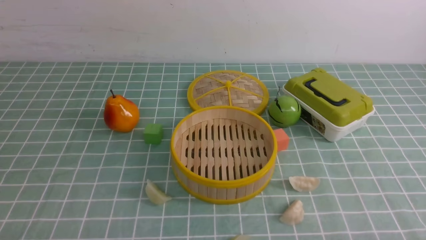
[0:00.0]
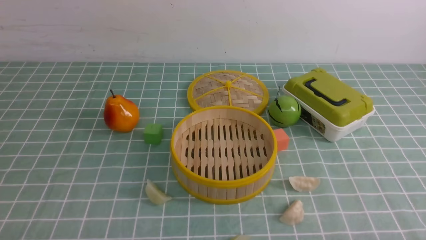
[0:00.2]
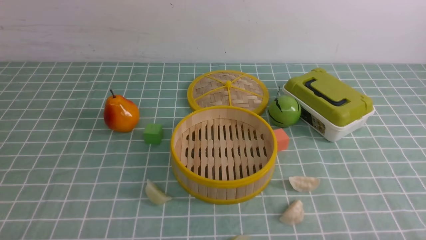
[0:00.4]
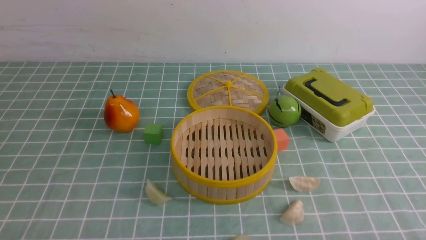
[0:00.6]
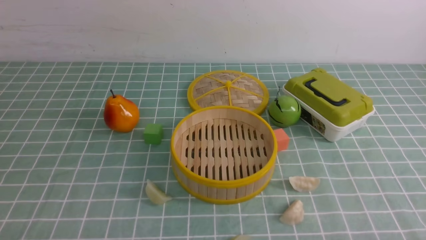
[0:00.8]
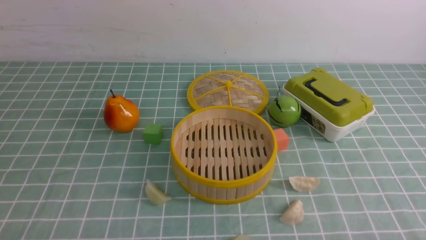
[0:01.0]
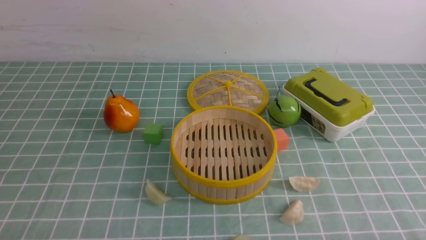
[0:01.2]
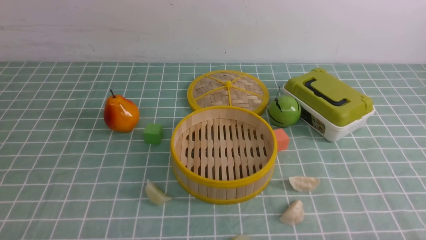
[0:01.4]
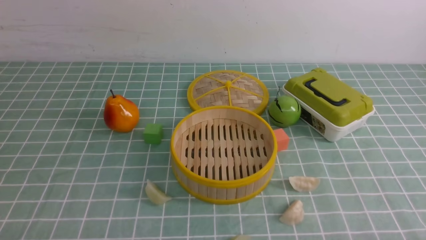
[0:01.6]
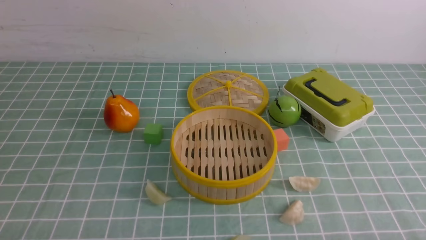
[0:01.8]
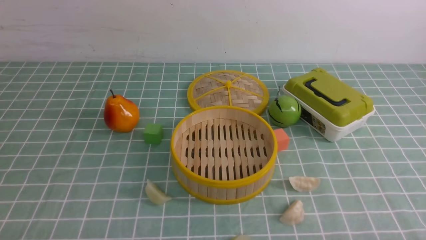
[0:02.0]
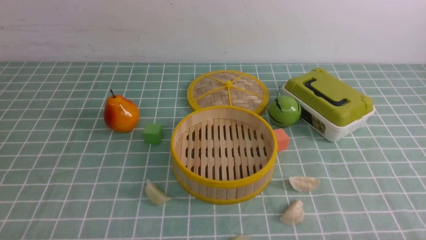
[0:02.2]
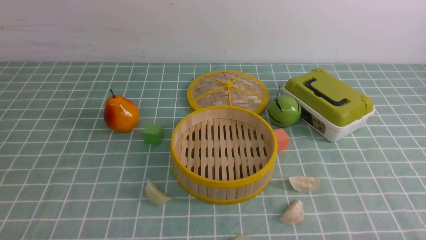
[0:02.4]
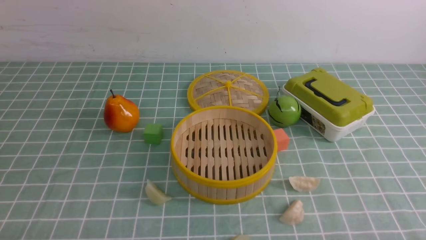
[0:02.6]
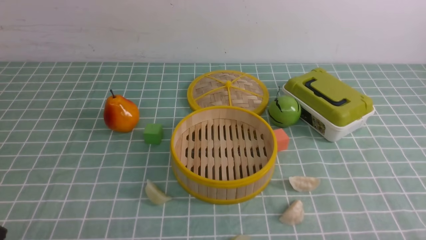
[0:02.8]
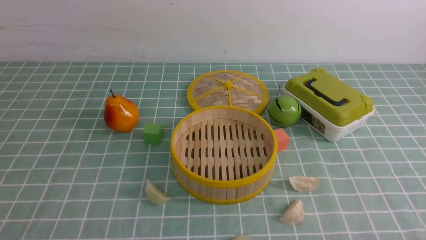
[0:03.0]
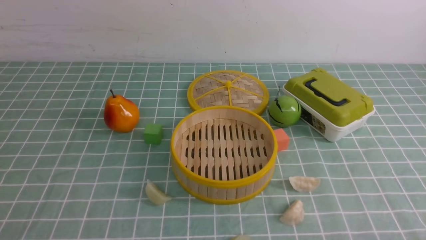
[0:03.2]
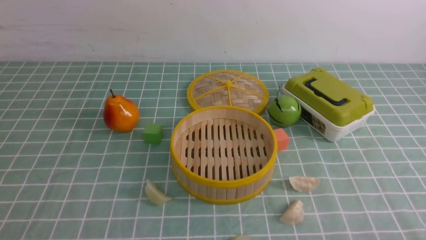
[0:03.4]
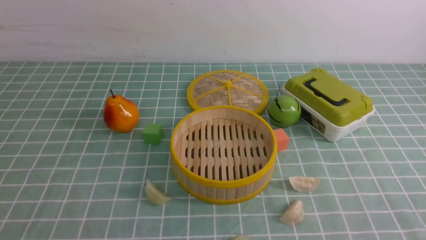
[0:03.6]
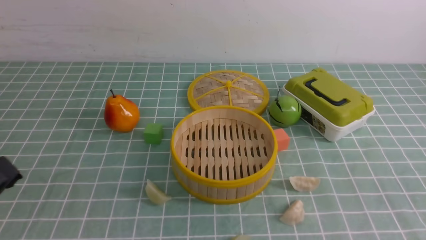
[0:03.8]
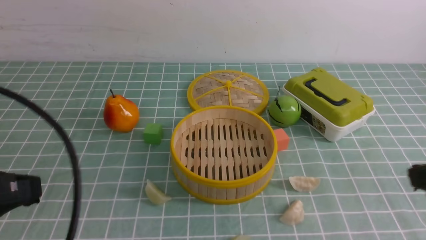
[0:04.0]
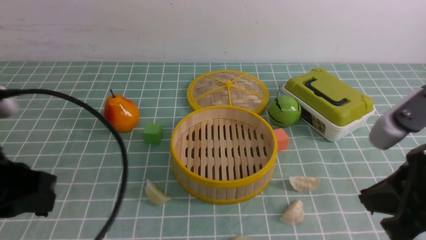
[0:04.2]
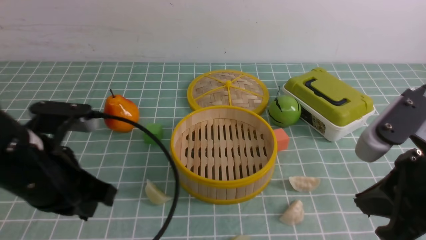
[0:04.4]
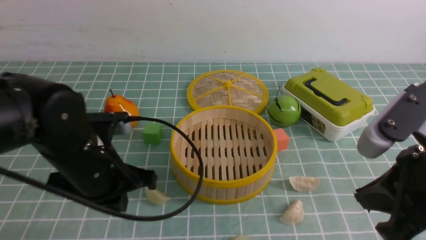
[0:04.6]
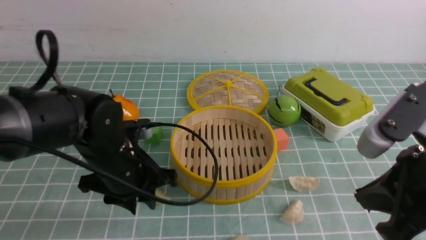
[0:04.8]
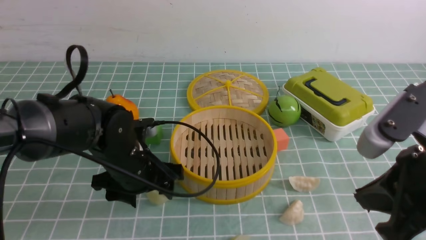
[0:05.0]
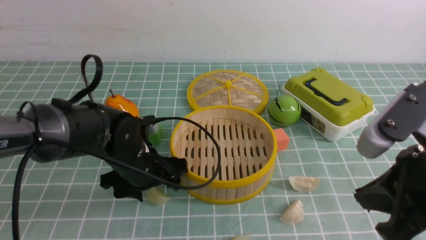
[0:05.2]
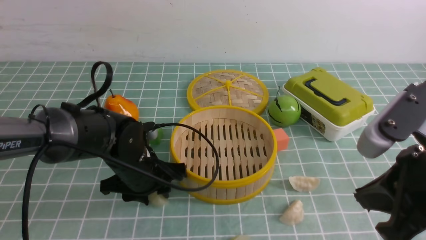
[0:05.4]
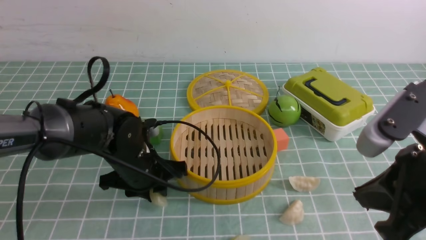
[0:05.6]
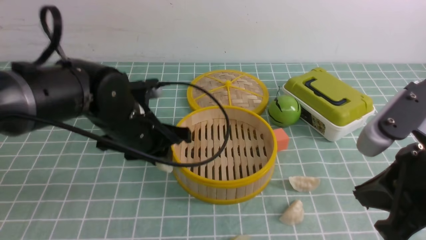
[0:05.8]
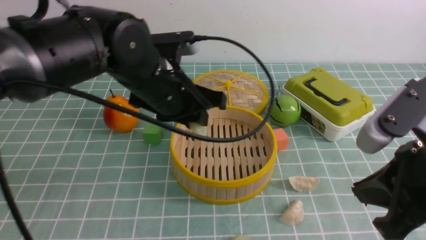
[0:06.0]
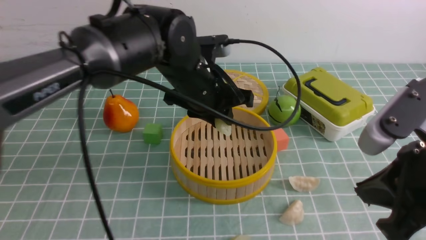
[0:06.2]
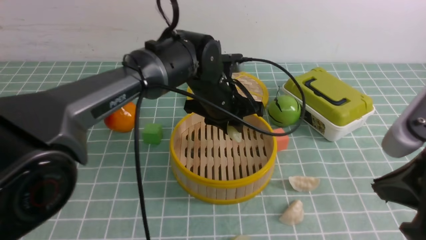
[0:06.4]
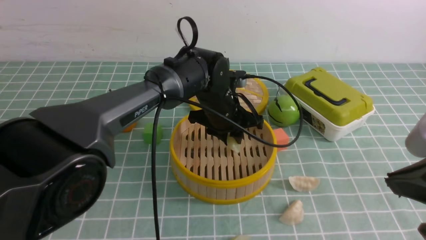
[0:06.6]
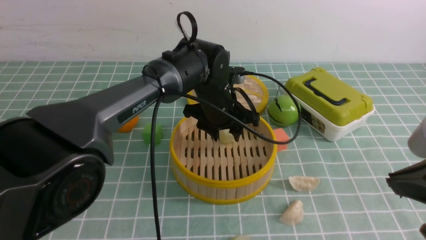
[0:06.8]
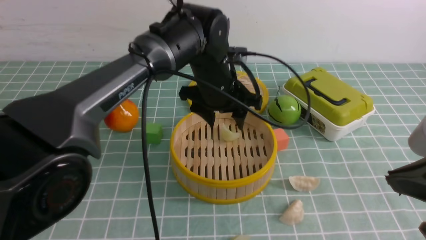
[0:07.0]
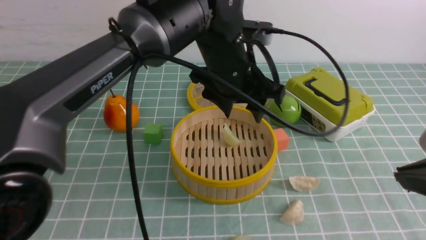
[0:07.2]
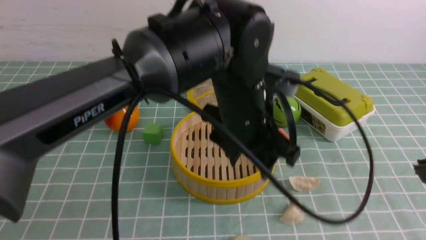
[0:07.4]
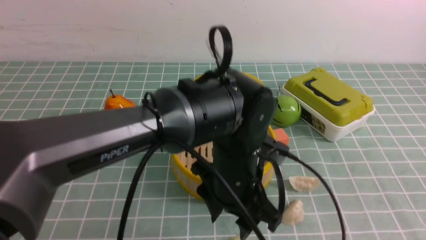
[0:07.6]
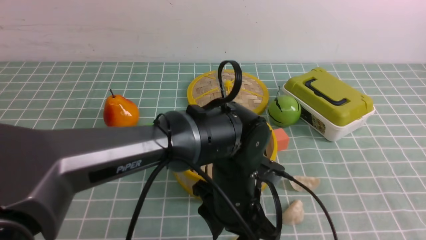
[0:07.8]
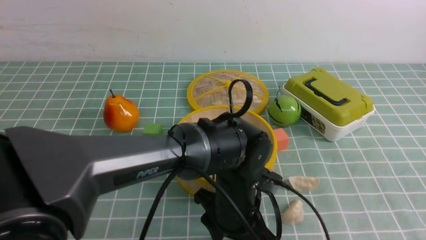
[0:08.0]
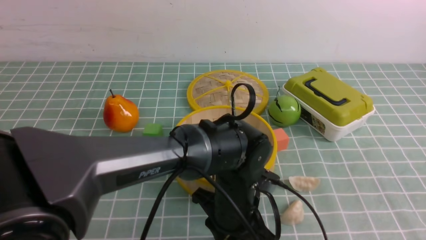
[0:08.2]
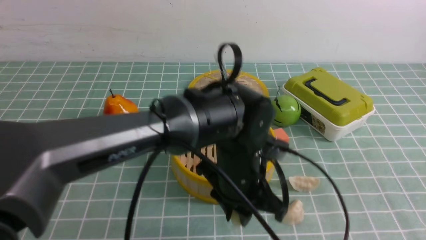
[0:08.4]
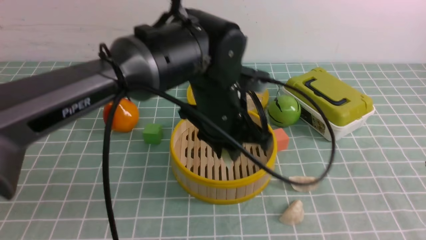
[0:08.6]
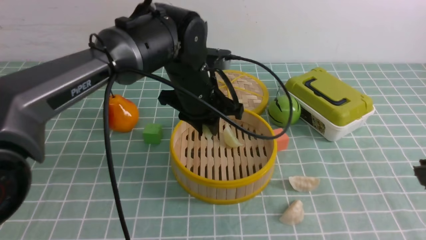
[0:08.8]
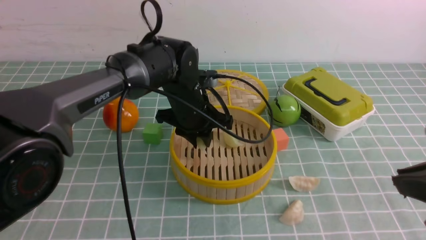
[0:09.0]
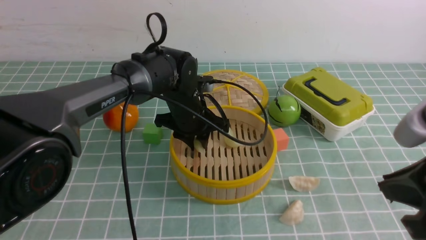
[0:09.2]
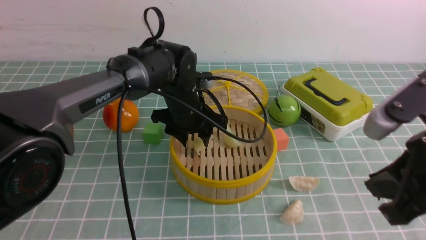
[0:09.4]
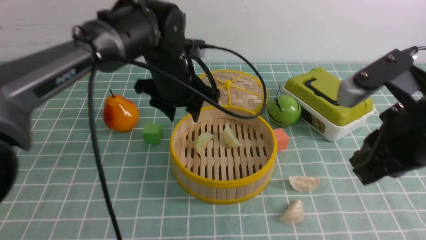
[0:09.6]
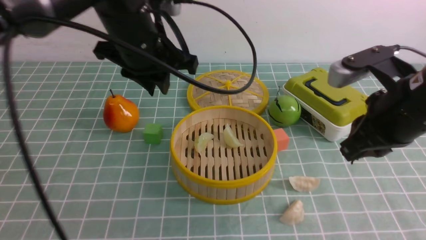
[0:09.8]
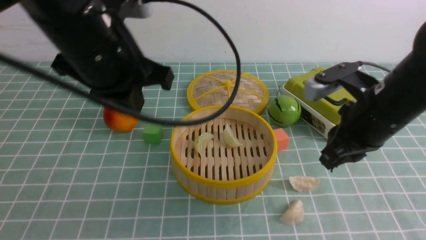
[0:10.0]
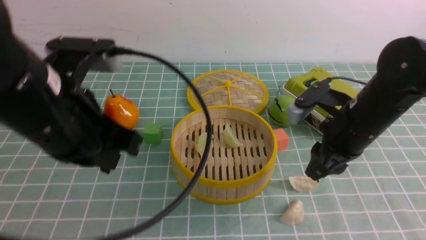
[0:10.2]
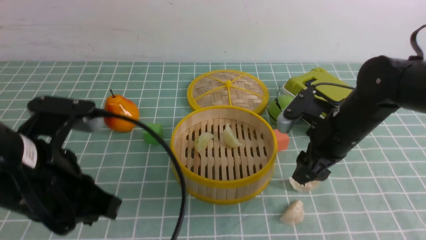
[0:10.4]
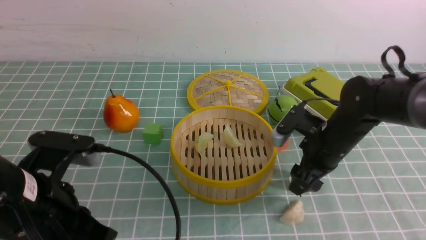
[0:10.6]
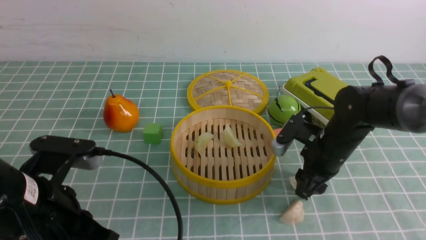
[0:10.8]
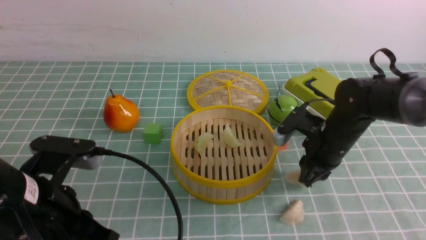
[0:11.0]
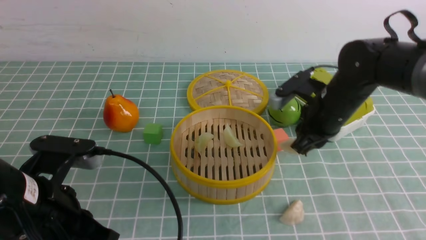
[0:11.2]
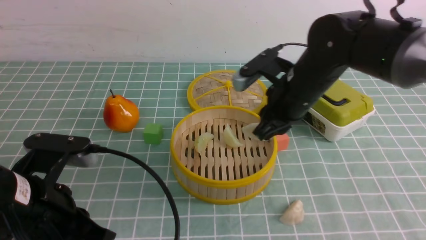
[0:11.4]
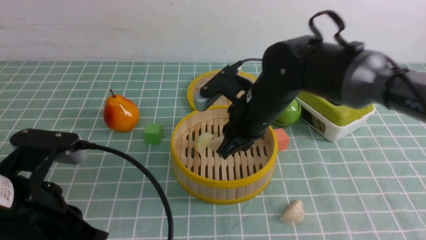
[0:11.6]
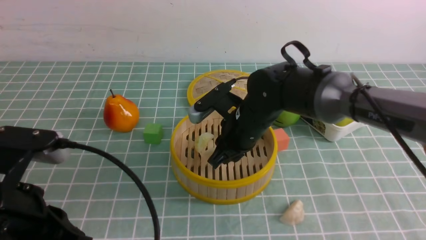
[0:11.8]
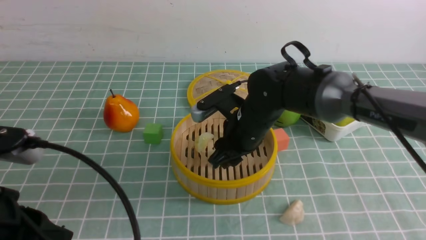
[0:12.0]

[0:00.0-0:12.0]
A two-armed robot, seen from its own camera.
Task of the whole recording: put the dumplings into the steamer on the table with the blue tablecloth.
Step, 0:00.0 to 0:05.4: use the left arm to grab a dumpling.
Step, 0:05.6 to 0:07.0: use the left arm to put the dumpling into the steamer.
Step, 0:07.2 to 0:08.0: use the left arm to grab a dumpling.
Step, 0:08.2 to 0:09.4: use the left arm to put the dumpling into the steamer.
Step, 0:09.6 to 0:10.8: use the right arm to grab a dumpling.
0:03.0 to 0:04.4: The right gripper shifts roughly 20 cm upward, forward and to the left, and closes; the left gripper moves forward, upward and to the right, approximately 20 cm.
0:04.4 to 0:06.0: The left gripper goes roughly 20 cm to the right and forward, and opens.
0:06.0 to 0:07.6: The left gripper heads to the right, backward and downward, covering about 15 cm, and opens up, while the right gripper travels backward by some 5 cm.
0:07.6 to 0:09.0: The left gripper shifts roughly 15 cm forward and to the left, and closes.
0:09.0 to 0:10.4: The left gripper heads backward and to the left, covering some 25 cm, and closes its fingers. Meanwhile the right gripper moves forward and downward, some 25 cm, and opens up.
0:10.4 to 0:12.0: The right gripper shifts roughly 15 cm to the left, and closes, then opens again. Meanwhile the left gripper heads backward, covering about 5 cm.

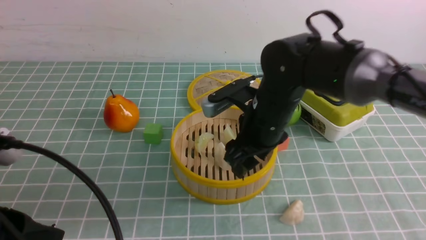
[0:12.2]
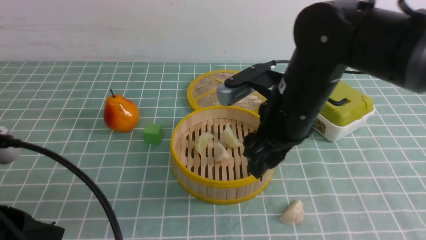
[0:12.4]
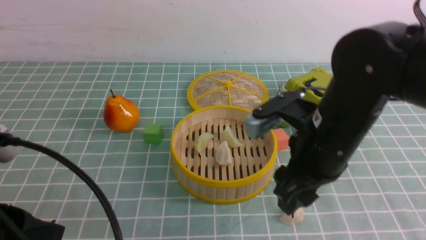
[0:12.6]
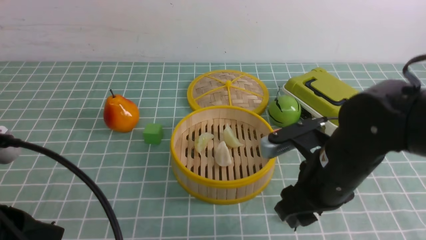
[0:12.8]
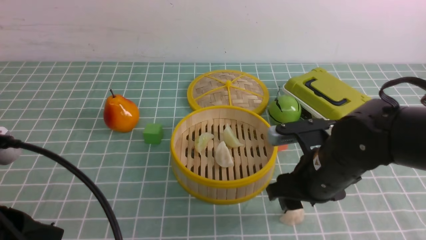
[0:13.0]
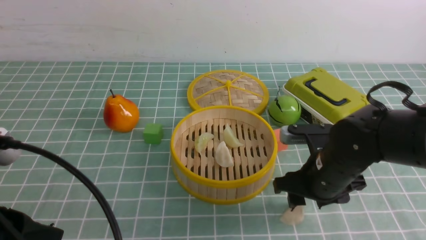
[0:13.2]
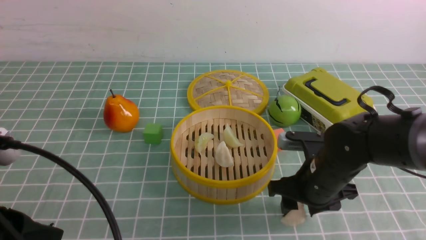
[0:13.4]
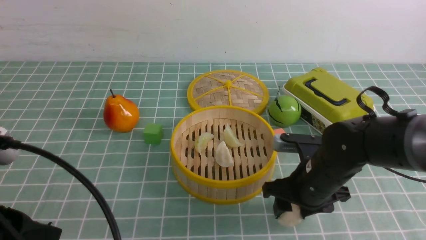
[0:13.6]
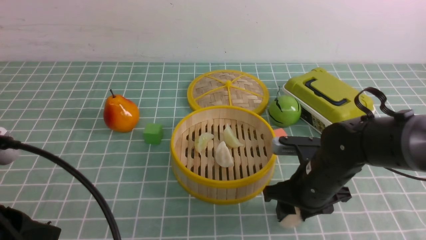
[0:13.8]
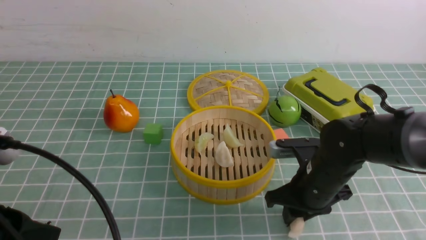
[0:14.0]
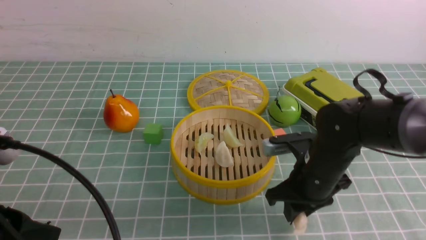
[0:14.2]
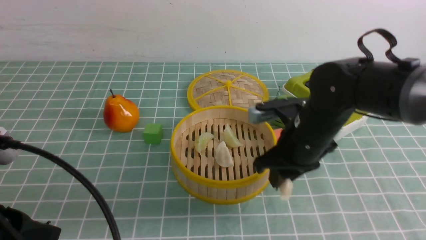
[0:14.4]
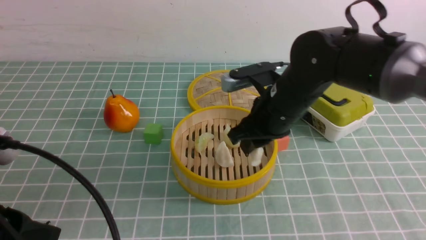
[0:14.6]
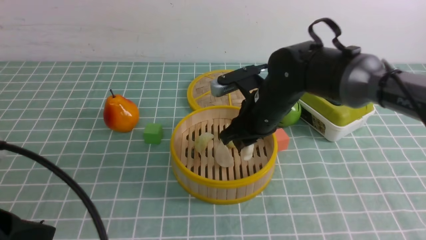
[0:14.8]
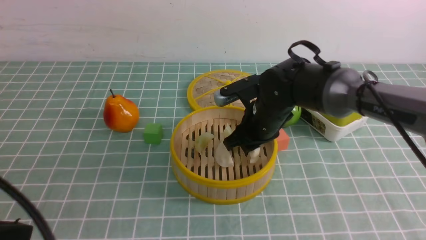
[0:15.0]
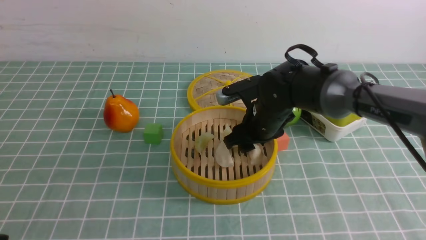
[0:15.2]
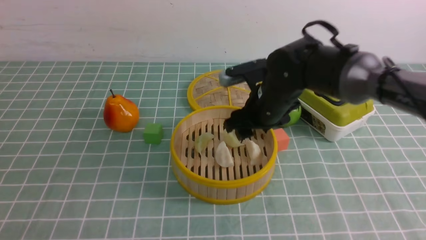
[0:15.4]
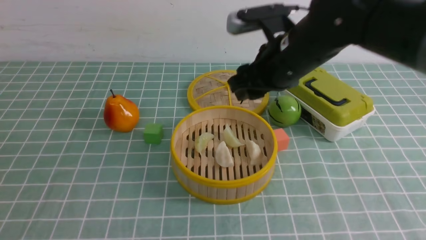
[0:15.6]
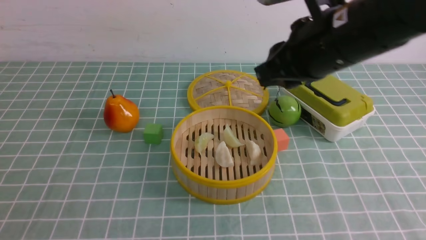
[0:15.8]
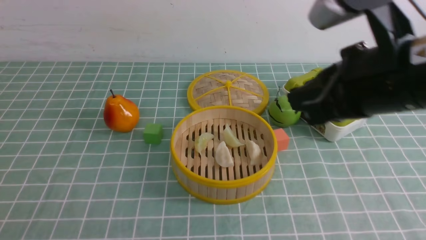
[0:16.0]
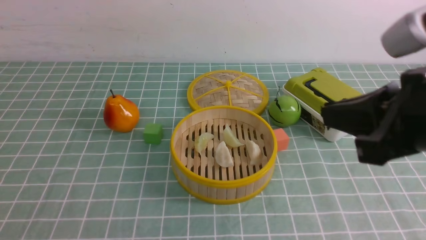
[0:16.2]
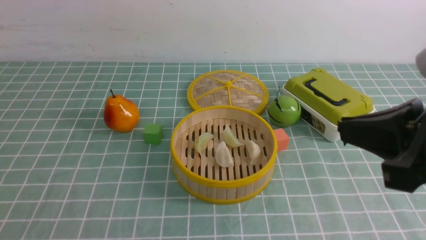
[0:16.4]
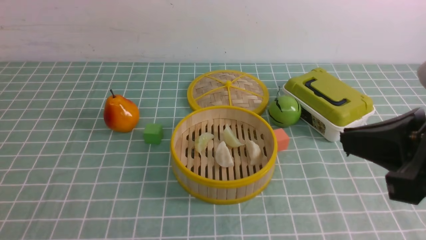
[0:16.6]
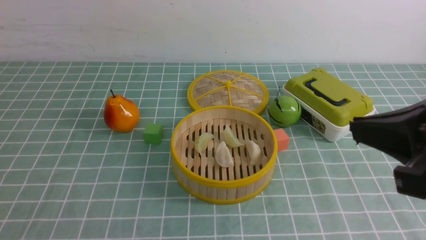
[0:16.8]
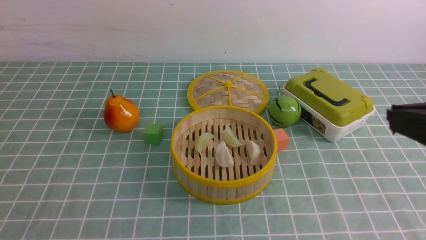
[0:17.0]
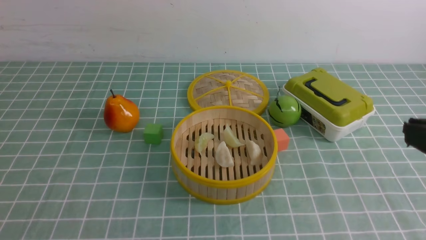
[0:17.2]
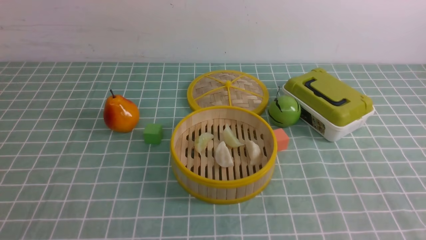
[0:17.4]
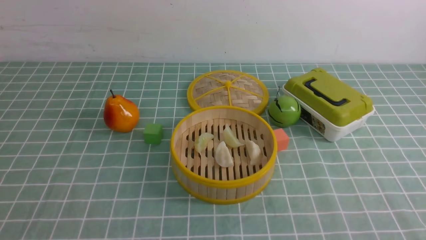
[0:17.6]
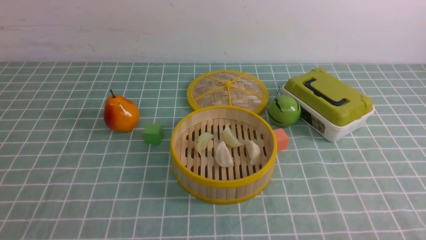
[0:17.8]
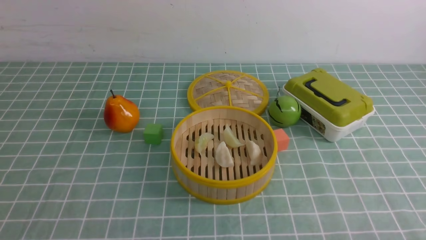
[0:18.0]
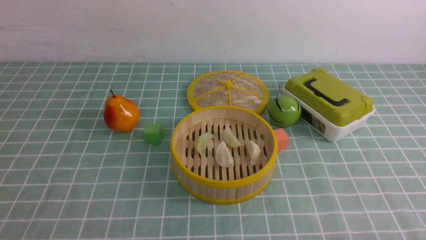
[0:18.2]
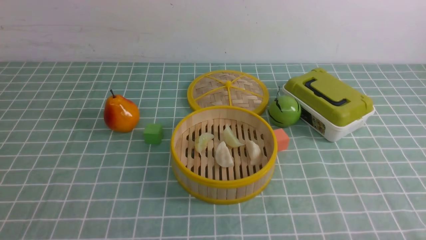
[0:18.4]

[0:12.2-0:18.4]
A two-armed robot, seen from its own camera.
Task of the whole recording: put the dumplings into the steamer on the table with the blue tablecloth.
Step, 0:12.4 to 0:13.8: use the right arm to grab a dumpling.
Step, 0:14.0 to 0:15.4: use the right arm to put the dumpling into the steamer.
0:12.2 to 0:13.8: The right gripper is displaced downward and to the right by some 15 cm.
0:13.8 to 0:15.4: The left gripper travels backward by roughly 5 cm; the right gripper shifts approximately 15 cm upward, forward and to the left.
0:15.4 to 0:16.8: The right gripper moves backward, to the right and upward, about 30 cm, and closes up.
0:16.8 to 0:18.4: The right gripper shifts about 25 cm downward and to the right.
